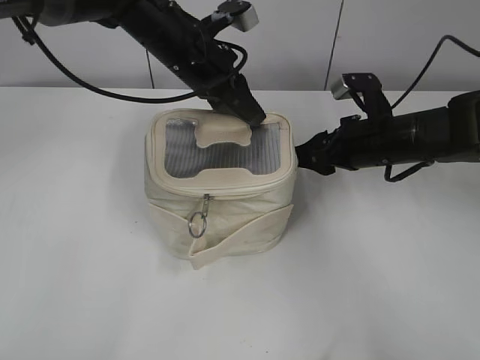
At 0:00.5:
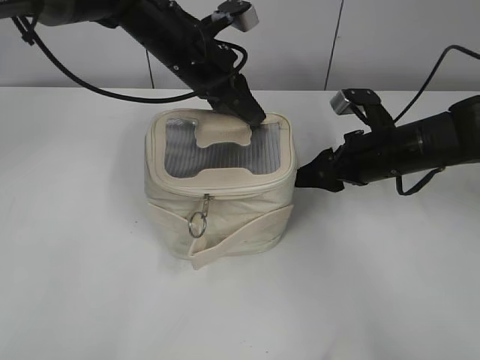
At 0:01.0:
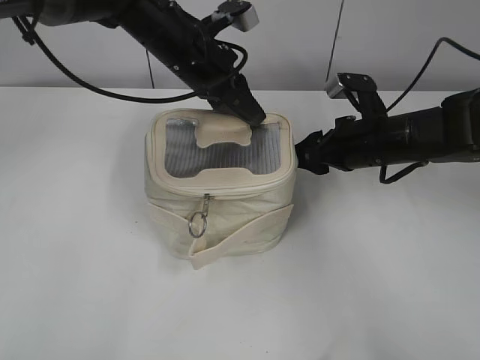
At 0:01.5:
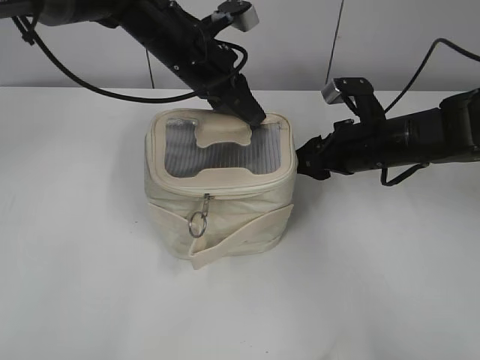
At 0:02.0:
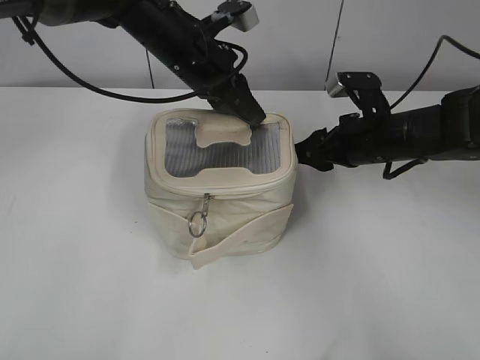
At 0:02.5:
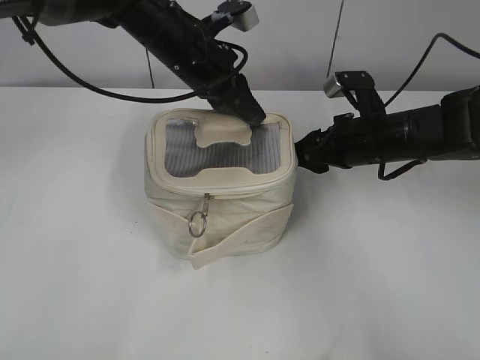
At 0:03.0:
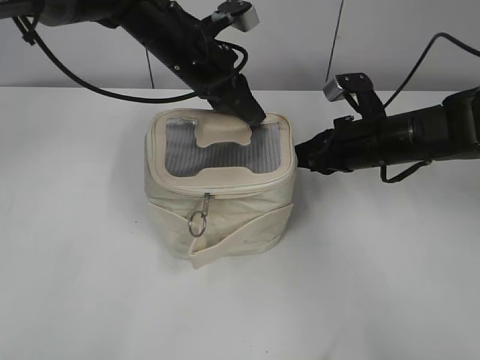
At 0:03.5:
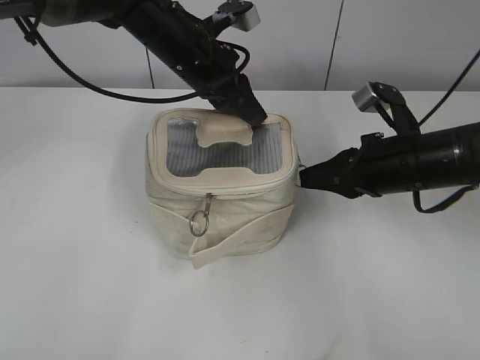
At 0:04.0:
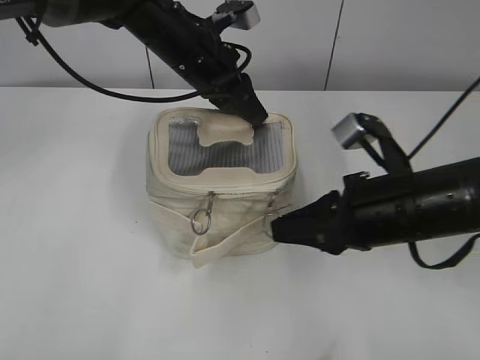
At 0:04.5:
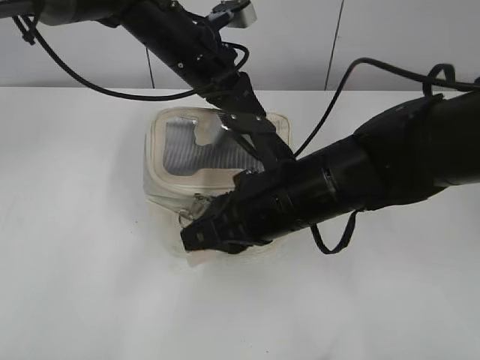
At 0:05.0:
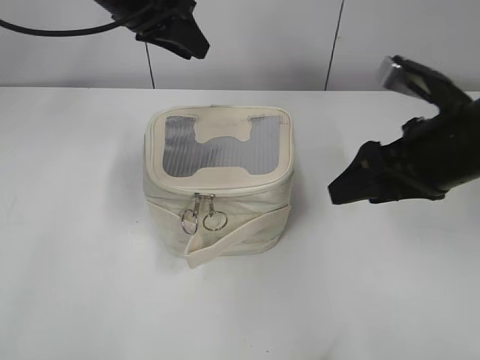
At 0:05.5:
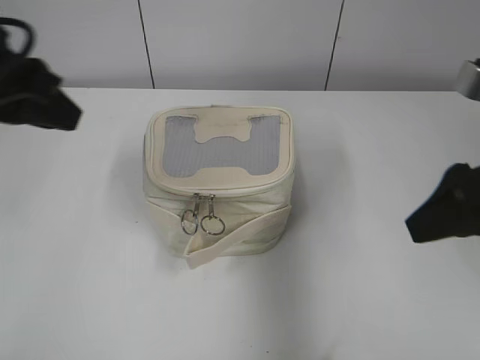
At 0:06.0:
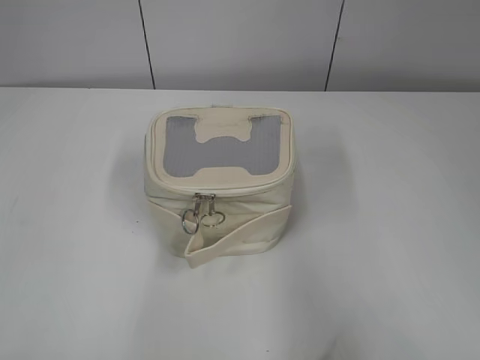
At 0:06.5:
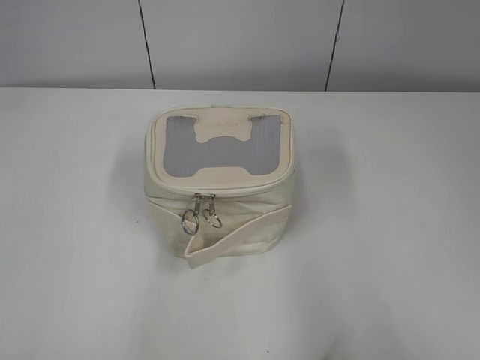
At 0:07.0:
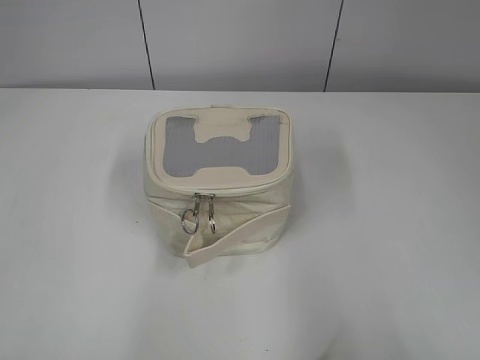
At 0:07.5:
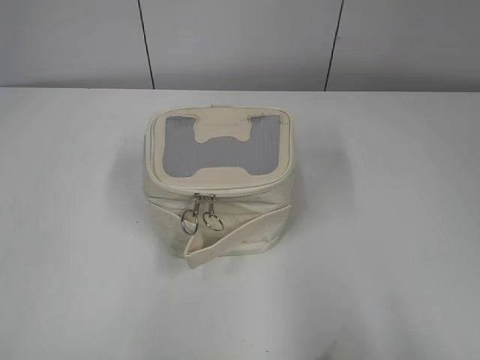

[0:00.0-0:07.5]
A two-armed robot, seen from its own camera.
Step, 0:00.0 to 0:04.5: Zip up the bag with your right hand.
0:00.0 to 0:02.0: The grippers move only a little.
0:02.0 to 0:04.0: The right gripper goes approximately 15 cm backward, and closes its fingers.
0:04.0 to 0:05.5: The left gripper goes roughly 25 cm backward, to the left and upward, and opens its fingers. Meanwhile the right gripper travels upward and to the right by approximately 10 cm, and opens up.
0:05.5 to 0:07.5: The right gripper travels backward by about 20 cm. Meanwhile the left gripper heads backward and to the left, covering some 25 cm.

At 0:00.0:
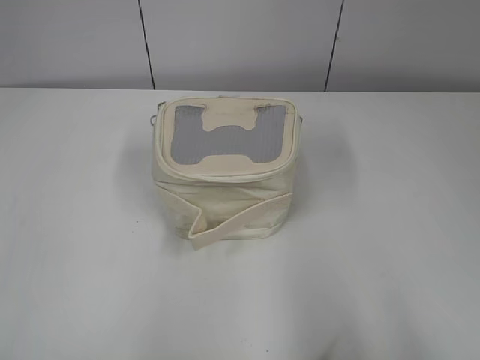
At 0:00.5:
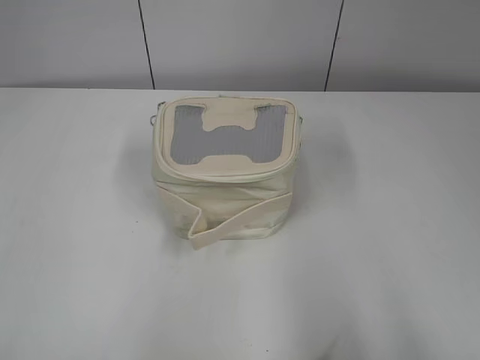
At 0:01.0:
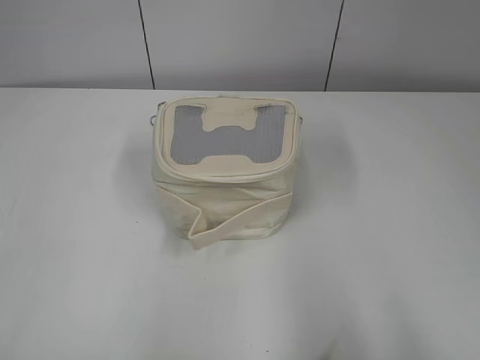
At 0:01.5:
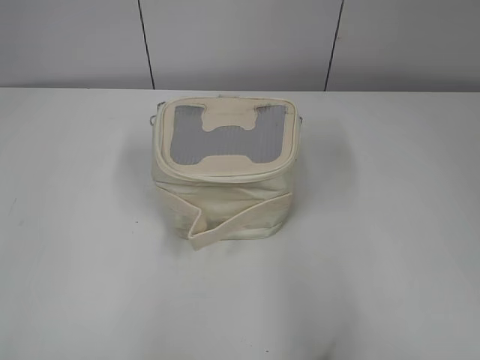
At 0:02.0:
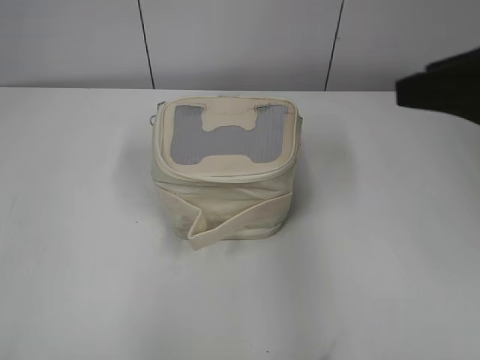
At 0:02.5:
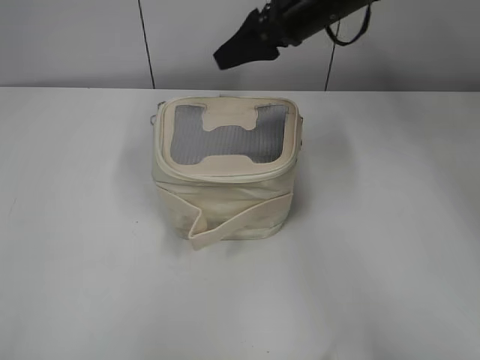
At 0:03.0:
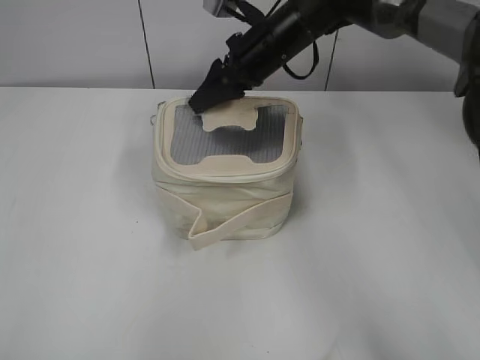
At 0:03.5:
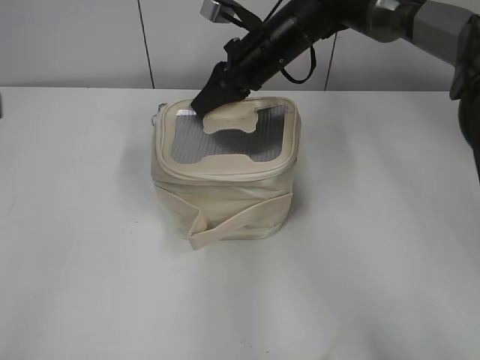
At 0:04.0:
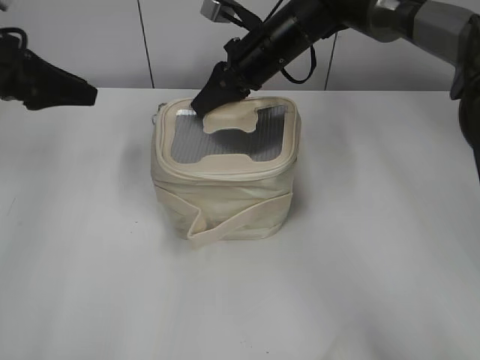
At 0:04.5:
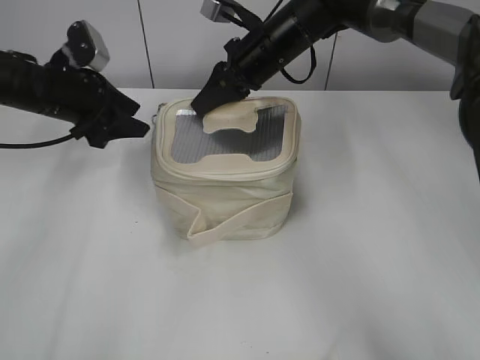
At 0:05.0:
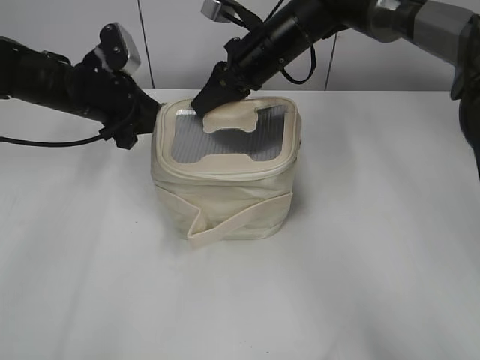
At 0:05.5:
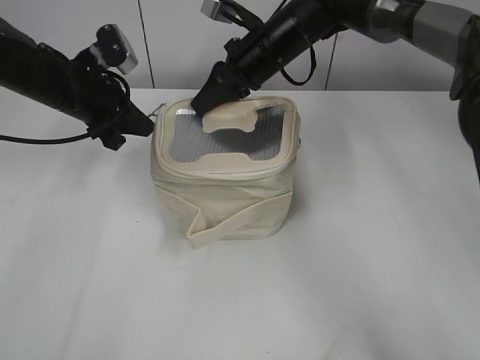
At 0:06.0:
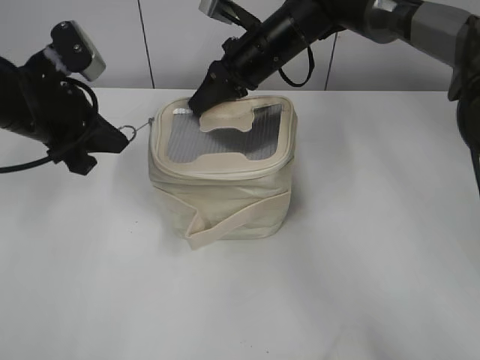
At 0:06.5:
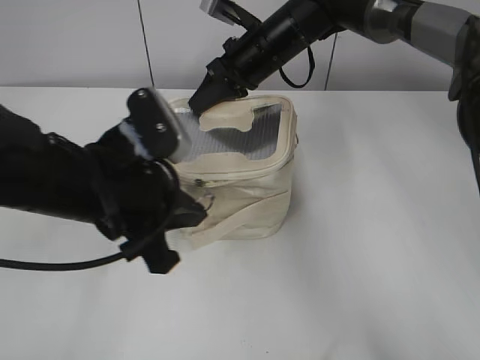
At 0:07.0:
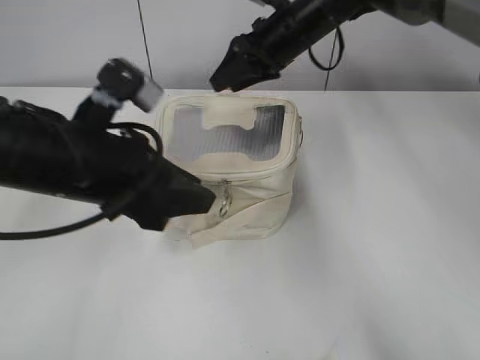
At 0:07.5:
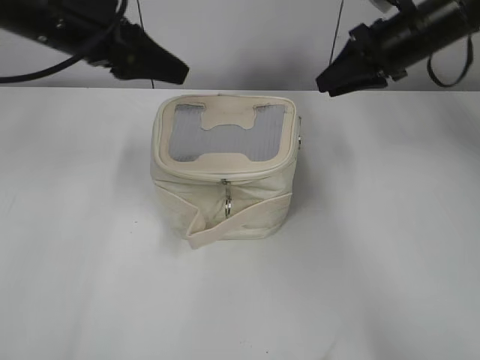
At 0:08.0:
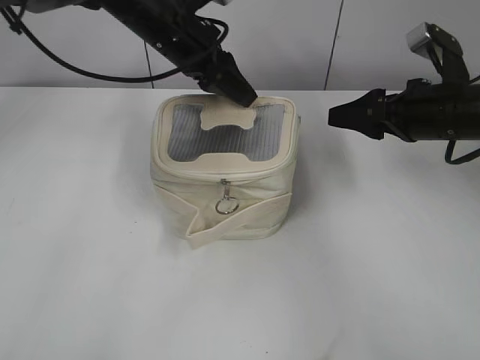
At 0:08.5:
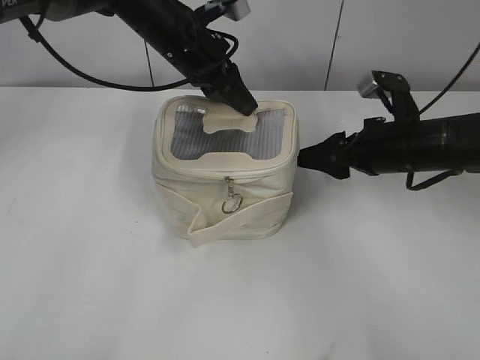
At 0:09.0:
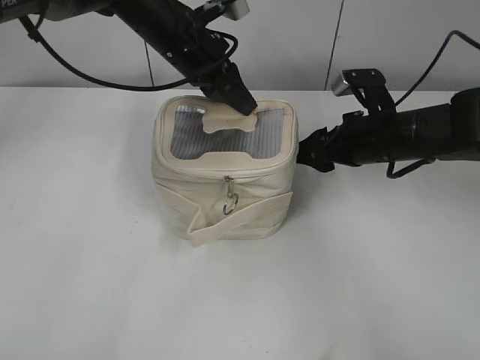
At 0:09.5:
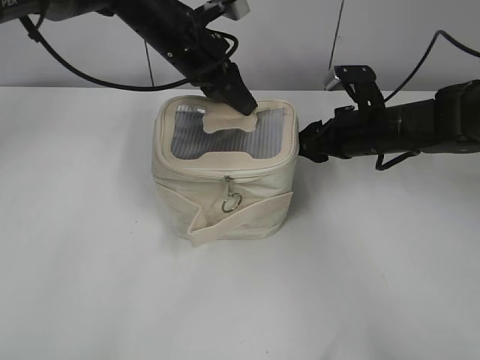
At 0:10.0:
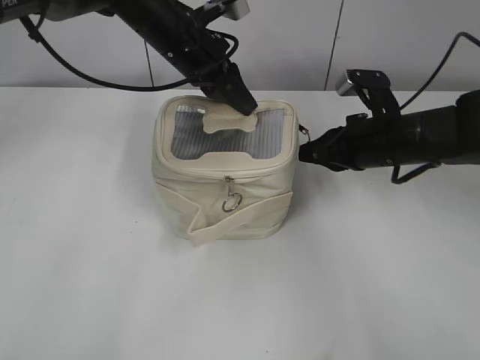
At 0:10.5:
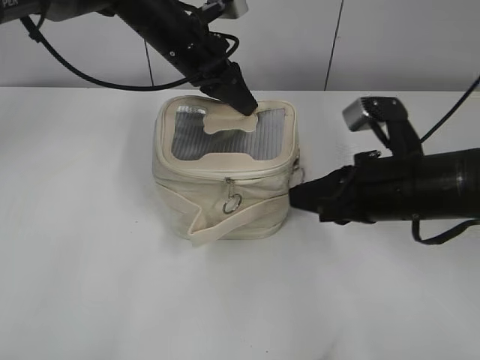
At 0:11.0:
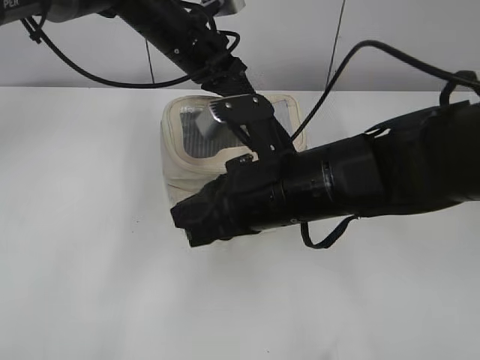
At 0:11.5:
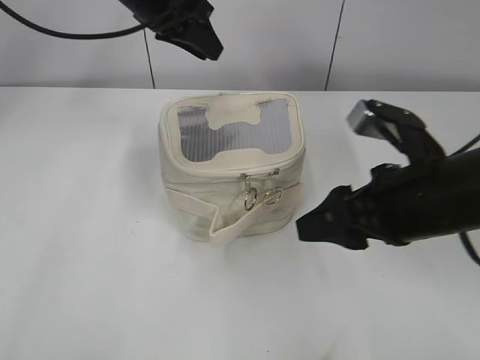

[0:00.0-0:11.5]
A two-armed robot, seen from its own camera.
Step, 0:00.0 to 0:06.5: Zip up the bag with your left hand.
Step, 0:07.5 to 0:11.0: Zip up the bag with your right hand.
0:02.0 to 0:04.0: The right gripper is displaced forward, to the left and downward by about 35 cm, and closes its fingers; the left gripper is displaced forward by about 35 cm.
0:04.0 to 0:06.0: The left gripper travels to the right by about 5 cm, and closes up.
0:06.0 to 0:07.5: The right gripper goes about 20 cm to the right, and opens its fingers; the left gripper goes roughly 10 cm upward, moves approximately 10 cm backward and comes back, and opens up.
0:07.5 to 0:09.5: The right gripper goes some 15 cm downward and backward. The left gripper moves to the right, forward and downward, about 15 cm, and closes up.
0:09.5 to 0:11.5: The left gripper is displaced upward by about 5 cm, and opens; the right gripper is displaced backward and upward by approximately 20 cm, and closes and opens again.

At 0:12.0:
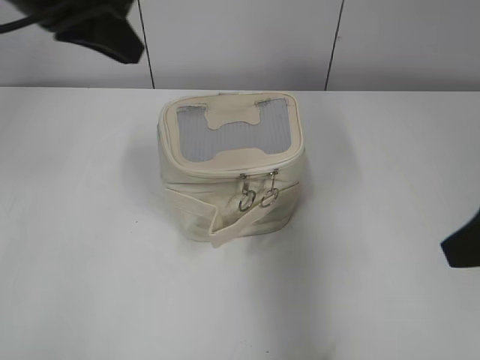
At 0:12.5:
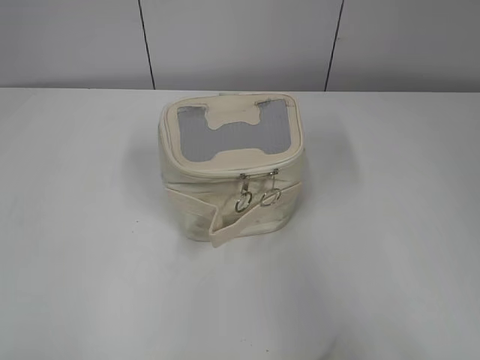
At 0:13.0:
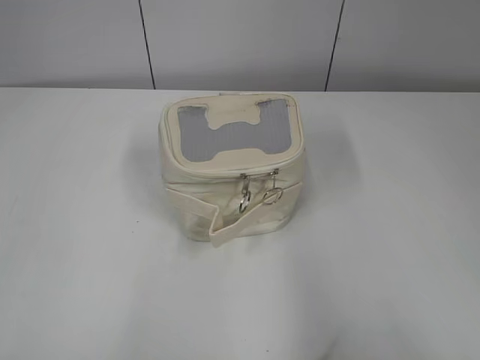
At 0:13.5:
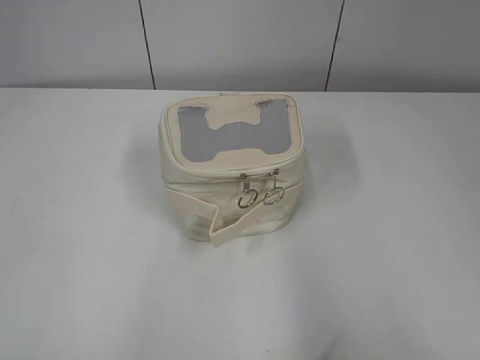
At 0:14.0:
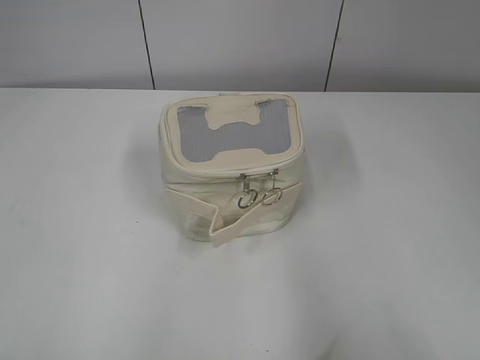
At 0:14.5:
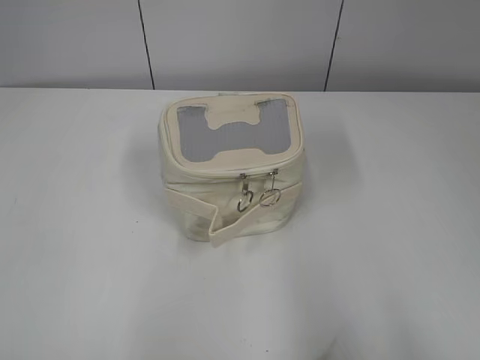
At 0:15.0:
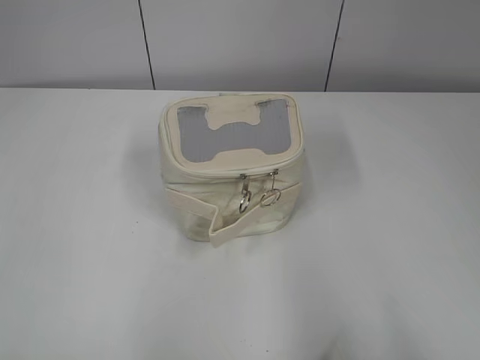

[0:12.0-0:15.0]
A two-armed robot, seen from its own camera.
0:12.0 to 0:13.5: The right gripper goes some 15 cm backward, while the left gripper shifts some 35 cm backward and to the left, and opens its fingers.
